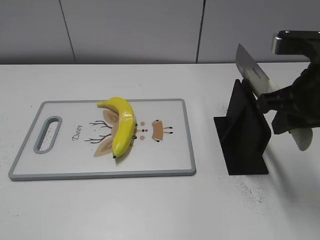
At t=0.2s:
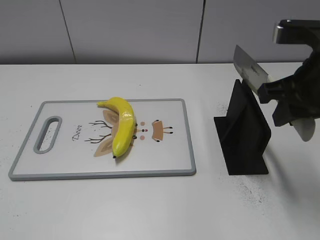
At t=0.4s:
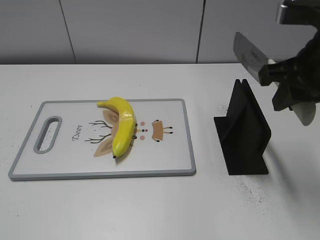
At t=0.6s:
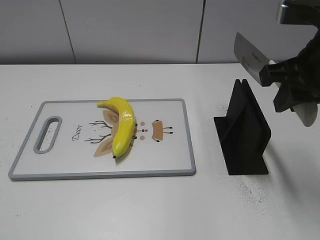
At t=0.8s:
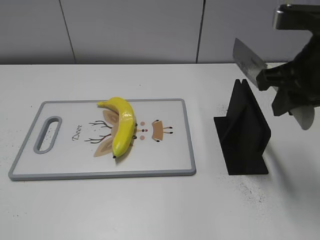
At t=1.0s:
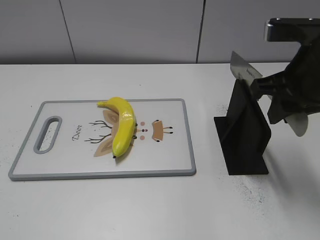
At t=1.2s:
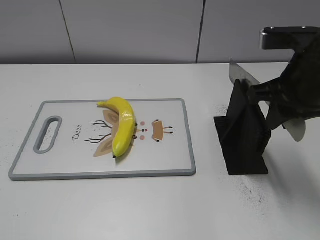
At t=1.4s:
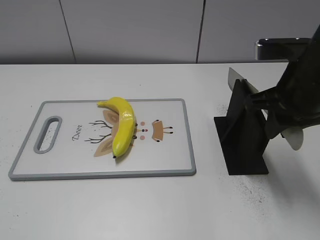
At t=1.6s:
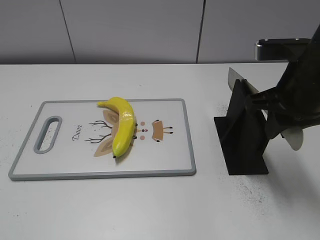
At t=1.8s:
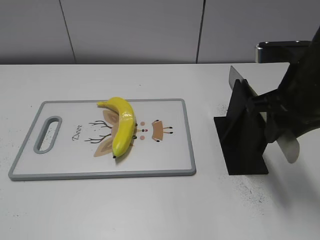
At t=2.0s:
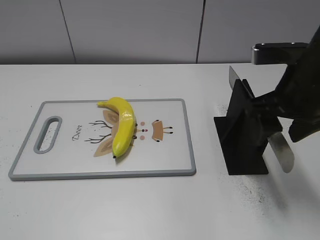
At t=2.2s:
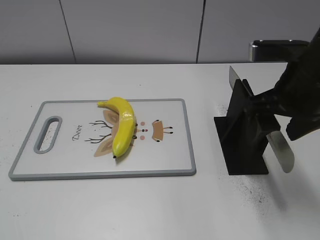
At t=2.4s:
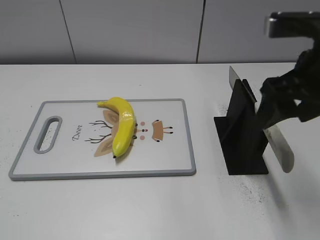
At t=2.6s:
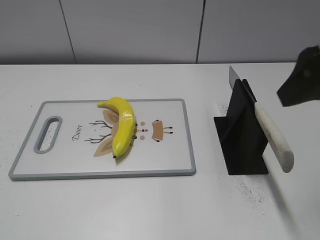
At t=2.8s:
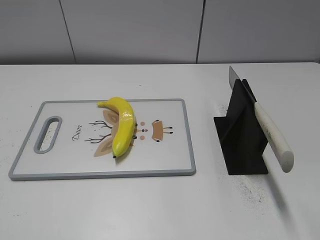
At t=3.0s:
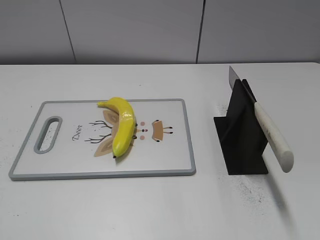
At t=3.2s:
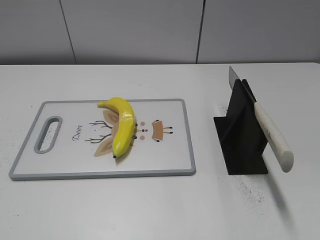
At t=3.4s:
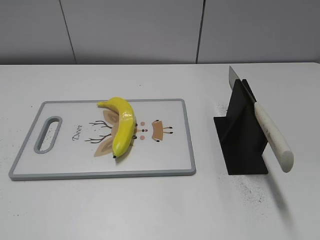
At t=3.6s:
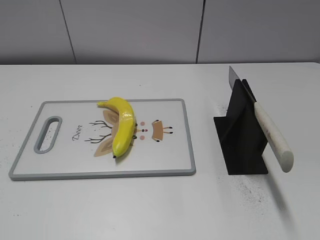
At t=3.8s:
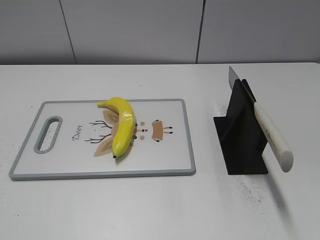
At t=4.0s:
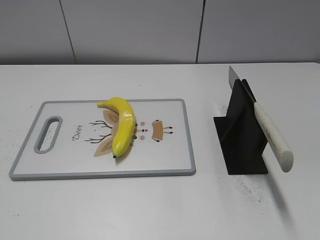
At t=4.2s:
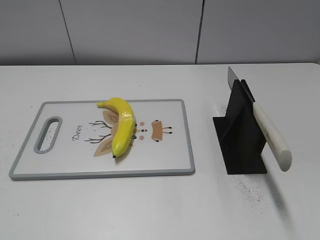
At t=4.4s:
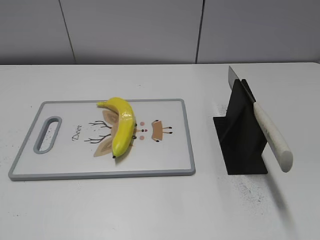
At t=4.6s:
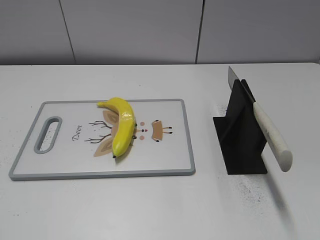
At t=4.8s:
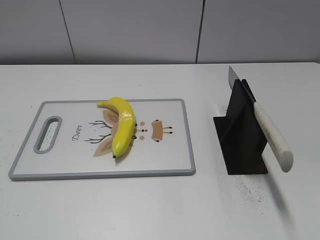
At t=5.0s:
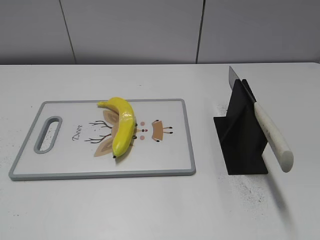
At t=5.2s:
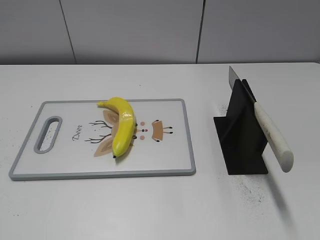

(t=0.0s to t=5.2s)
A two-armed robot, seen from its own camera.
Task of the whole recording: cut plastic banana.
Step, t=0.0s - t=5.2s: Place the knife on the storage rack with your right hand.
t=0.0s - t=1.8s: There are only small adjustments of the grippers.
t=1.8s - t=3.4s: The right gripper travels backward, upward and to the right by about 25 cm, and opens its fingers.
